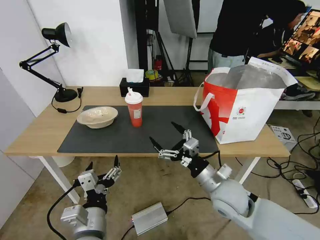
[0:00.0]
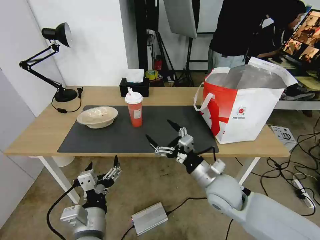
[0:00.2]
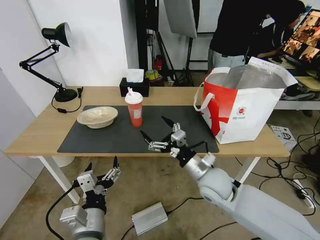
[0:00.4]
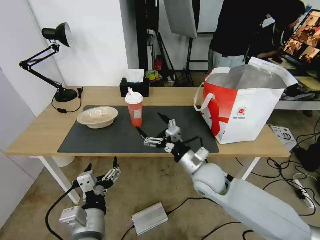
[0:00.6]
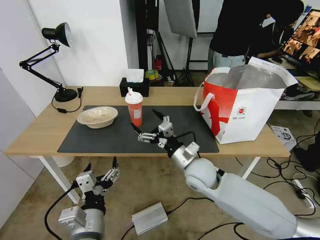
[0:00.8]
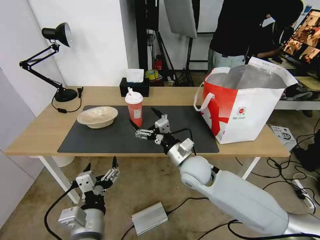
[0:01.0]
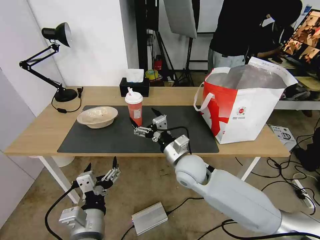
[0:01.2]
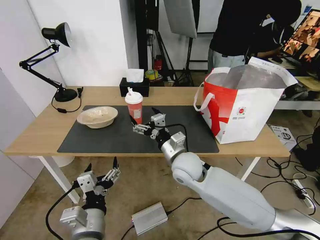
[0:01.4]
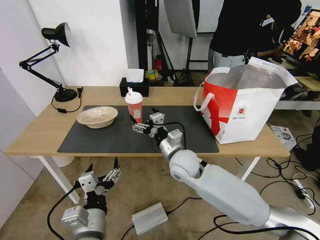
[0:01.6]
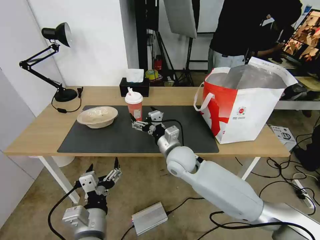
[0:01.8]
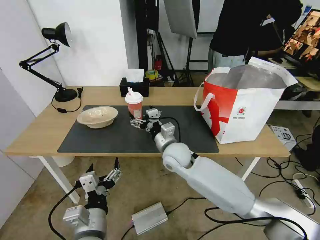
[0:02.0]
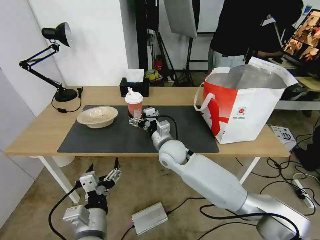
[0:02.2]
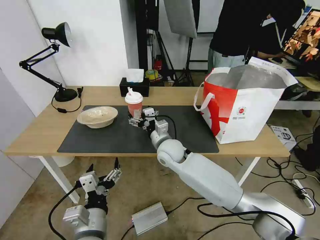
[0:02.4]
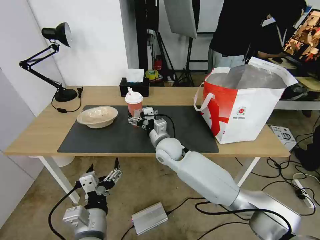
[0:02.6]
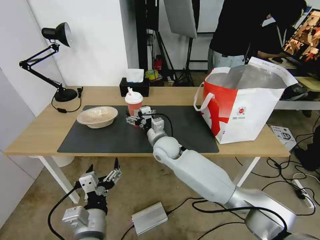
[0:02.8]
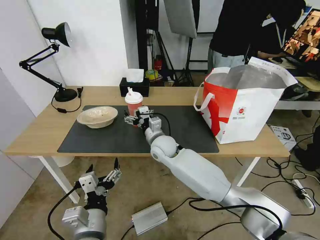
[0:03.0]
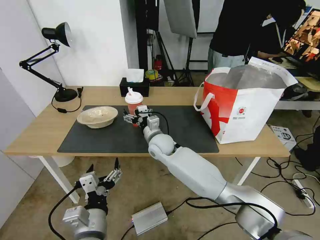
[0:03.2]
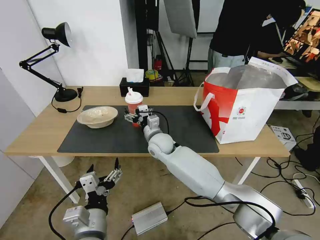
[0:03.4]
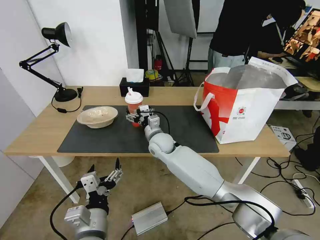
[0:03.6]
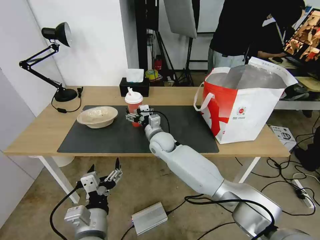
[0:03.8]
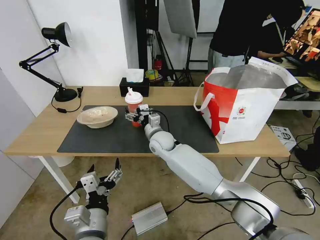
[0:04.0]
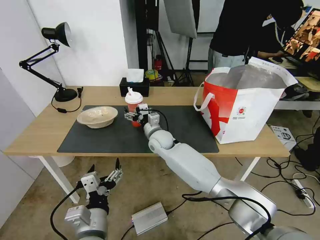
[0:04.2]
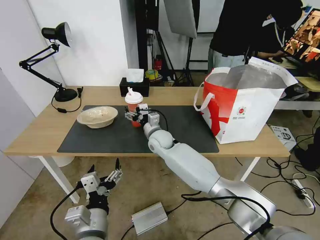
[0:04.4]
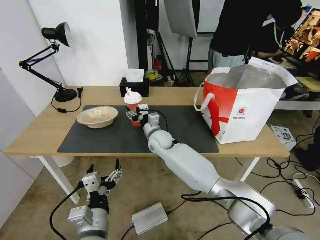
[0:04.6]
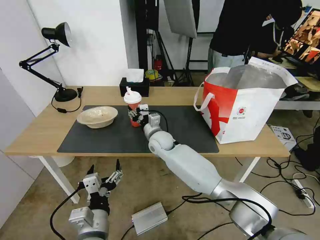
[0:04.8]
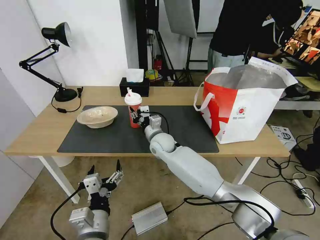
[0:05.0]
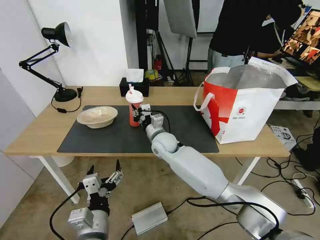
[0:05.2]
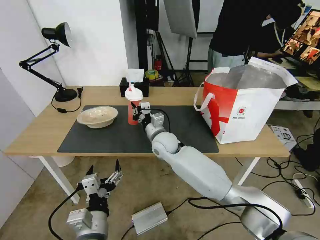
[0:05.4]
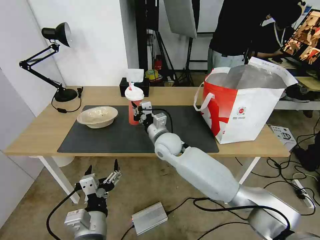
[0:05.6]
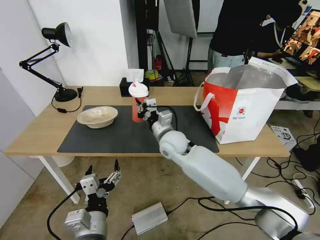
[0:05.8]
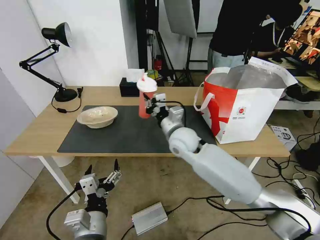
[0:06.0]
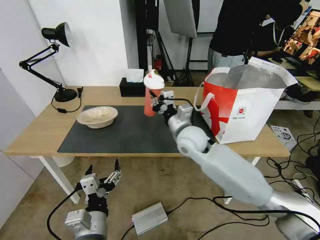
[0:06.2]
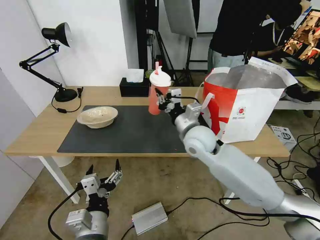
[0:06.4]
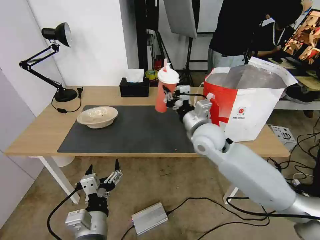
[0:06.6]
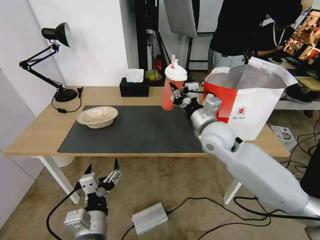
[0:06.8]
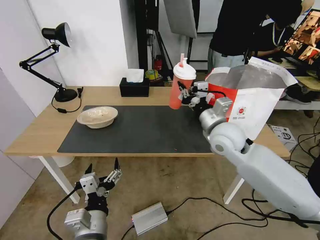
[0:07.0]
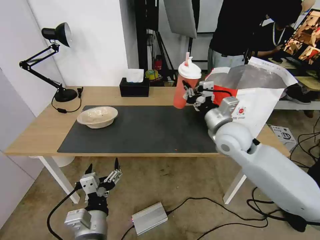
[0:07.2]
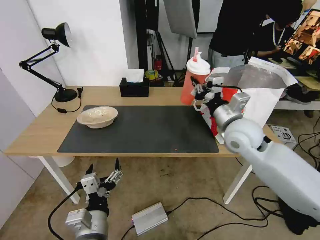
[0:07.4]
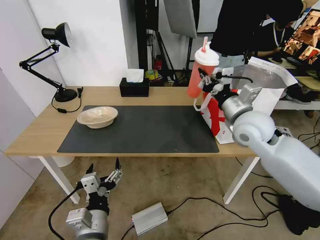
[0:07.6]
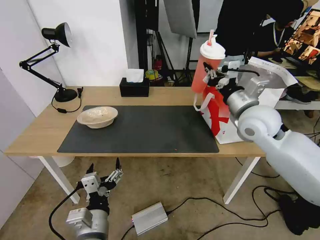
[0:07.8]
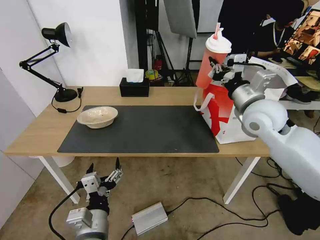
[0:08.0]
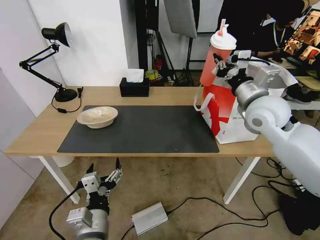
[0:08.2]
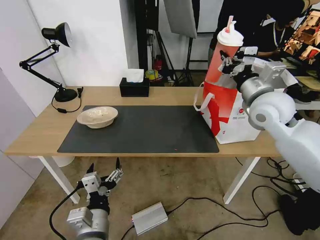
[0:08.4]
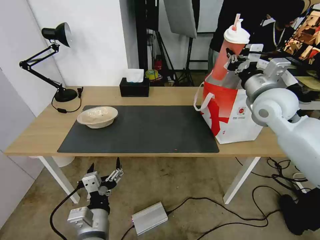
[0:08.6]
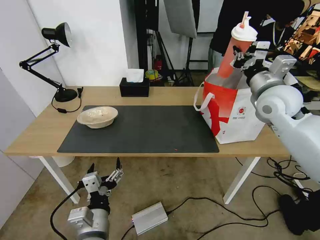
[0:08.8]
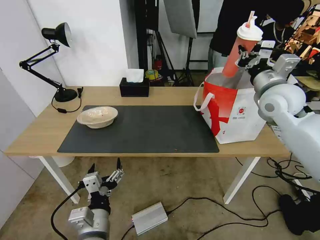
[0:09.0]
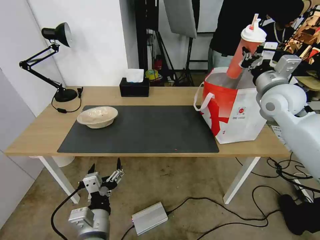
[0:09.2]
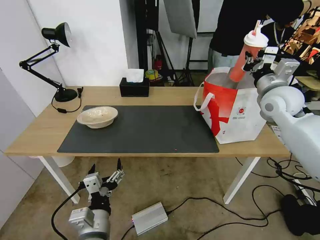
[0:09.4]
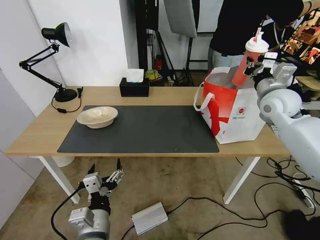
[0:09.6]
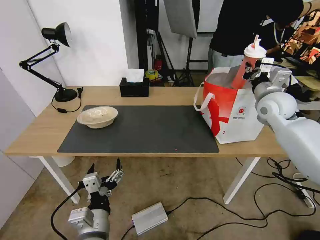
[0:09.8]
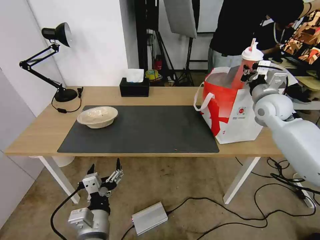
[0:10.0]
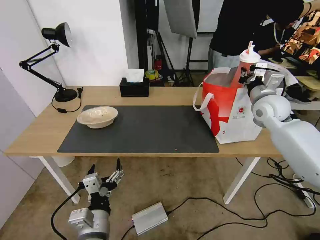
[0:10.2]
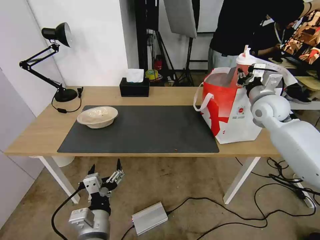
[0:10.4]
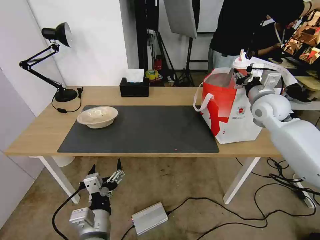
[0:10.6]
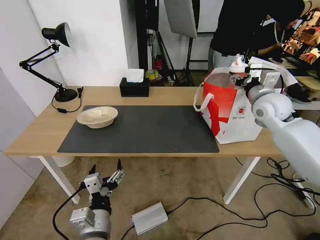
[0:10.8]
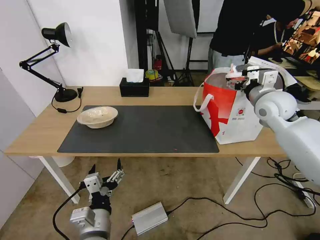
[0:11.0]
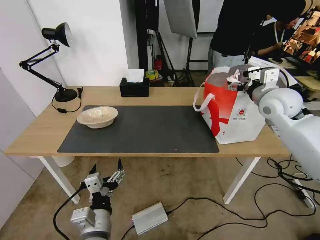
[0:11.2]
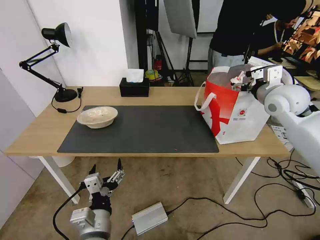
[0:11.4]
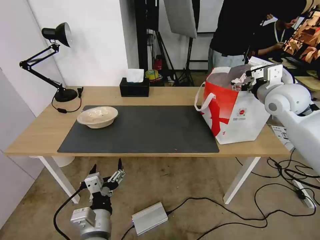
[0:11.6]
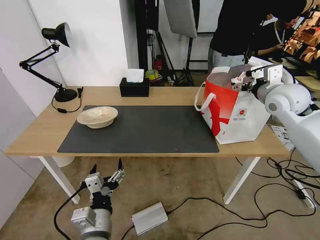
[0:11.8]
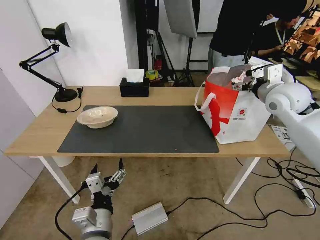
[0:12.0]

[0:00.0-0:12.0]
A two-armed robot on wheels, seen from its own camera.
Task of the whole recording: Pick up the trash from the table and place it into the takeout bag.
0:00.0 to 0:01.6: The right gripper shifts about 15 cm to the left and forward.
0:01.6 to 0:03.0: The right gripper shifts about 10 cm forward and to the left.
0:03.0 to 0:04.4: The grippers stay close to where they were, moving slightly.
0:04.4 to 0:06.0: The right gripper is displaced upward, to the right and backward by roughly 15 cm, and closes.
0:06.0 to 0:07.6: The right gripper travels to the right and upward by roughly 20 cm.
0:07.6 to 0:09.0: The right gripper travels to the right, forward and upward by roughly 10 cm.
0:09.0 to 0:10.4: The right gripper travels downward by approximately 5 cm.
0:10.4 to 0:12.0: The right gripper goes some 5 cm upward, and opens its fingers.

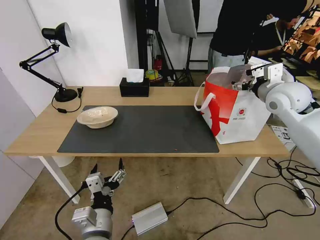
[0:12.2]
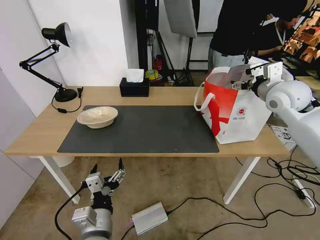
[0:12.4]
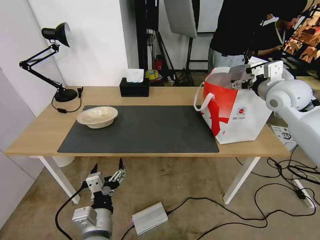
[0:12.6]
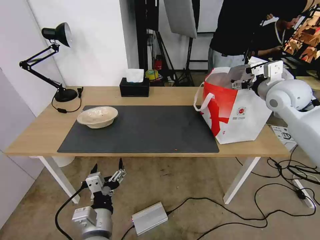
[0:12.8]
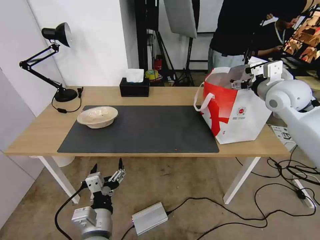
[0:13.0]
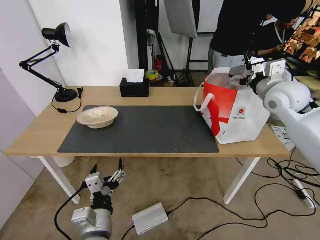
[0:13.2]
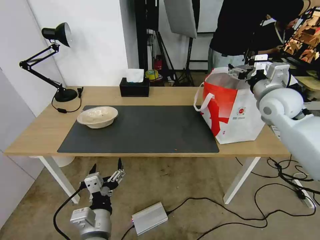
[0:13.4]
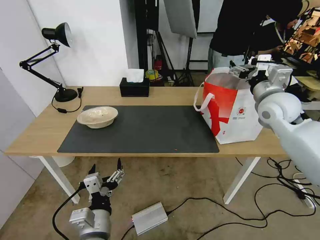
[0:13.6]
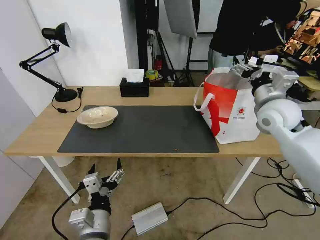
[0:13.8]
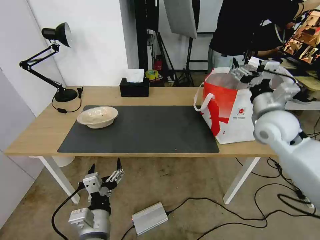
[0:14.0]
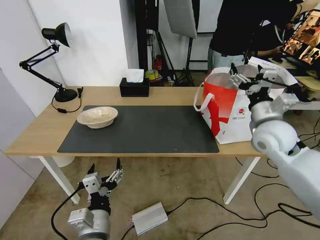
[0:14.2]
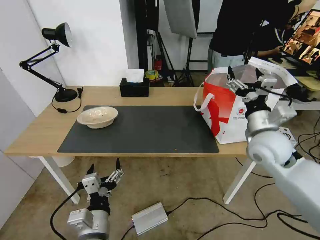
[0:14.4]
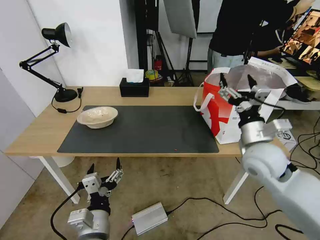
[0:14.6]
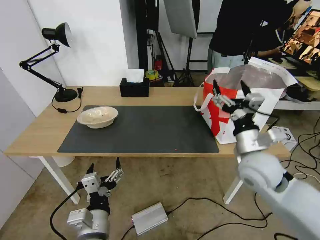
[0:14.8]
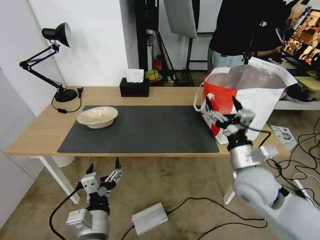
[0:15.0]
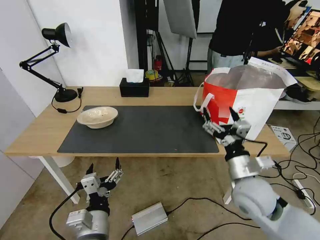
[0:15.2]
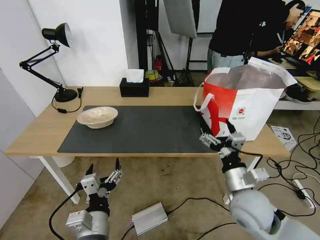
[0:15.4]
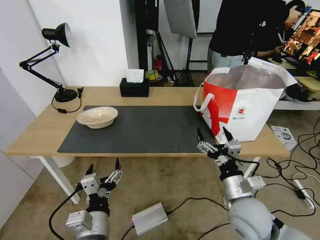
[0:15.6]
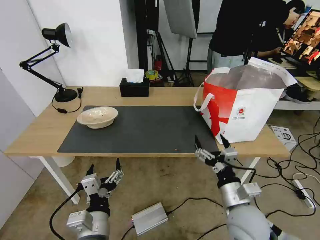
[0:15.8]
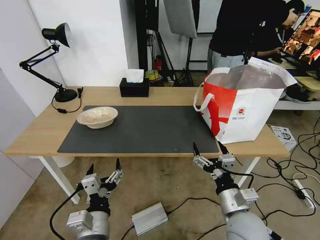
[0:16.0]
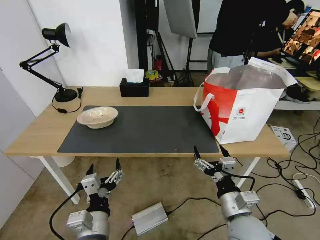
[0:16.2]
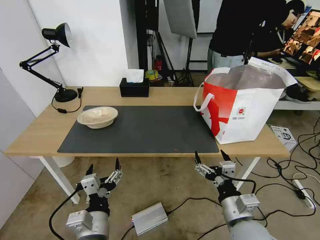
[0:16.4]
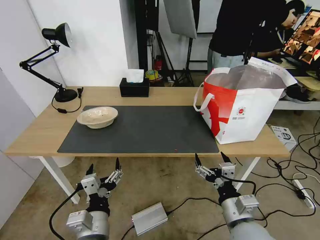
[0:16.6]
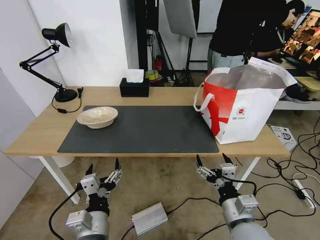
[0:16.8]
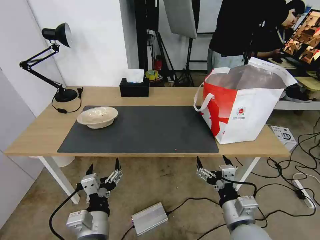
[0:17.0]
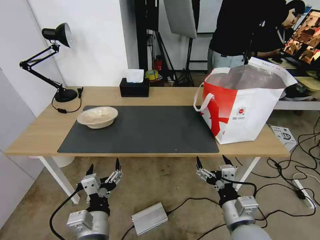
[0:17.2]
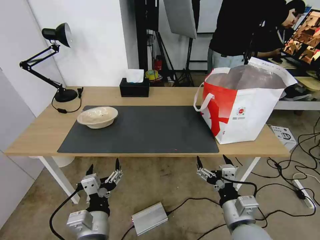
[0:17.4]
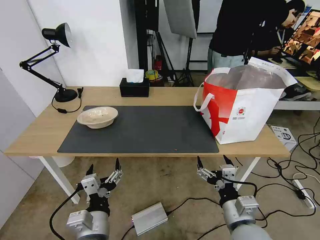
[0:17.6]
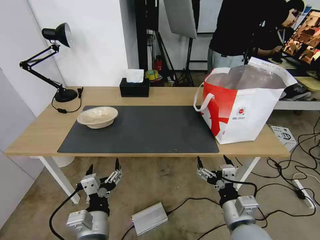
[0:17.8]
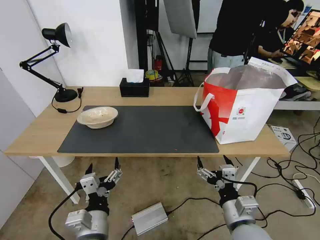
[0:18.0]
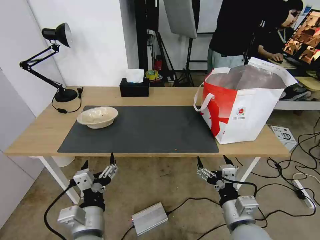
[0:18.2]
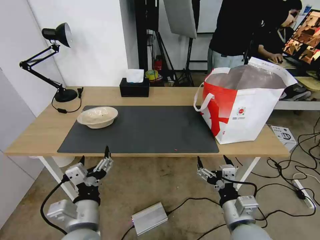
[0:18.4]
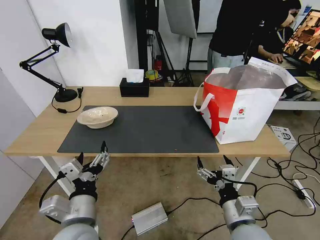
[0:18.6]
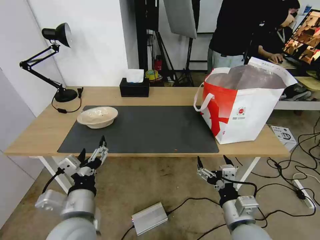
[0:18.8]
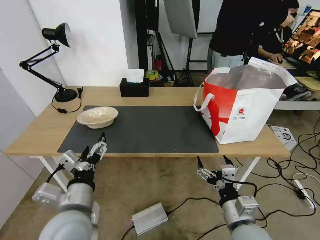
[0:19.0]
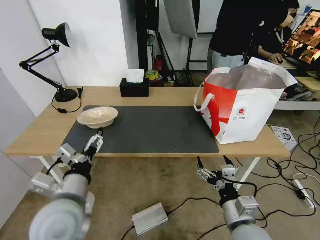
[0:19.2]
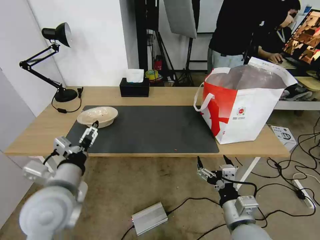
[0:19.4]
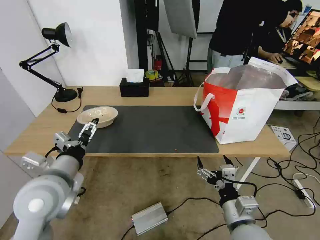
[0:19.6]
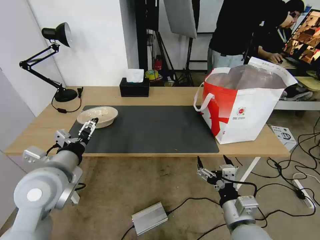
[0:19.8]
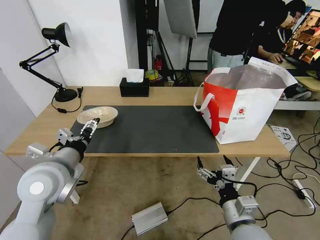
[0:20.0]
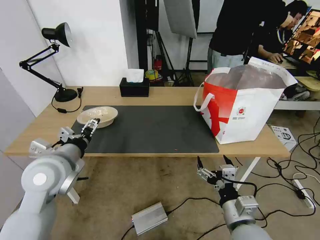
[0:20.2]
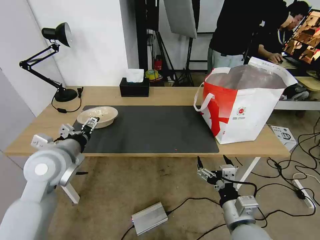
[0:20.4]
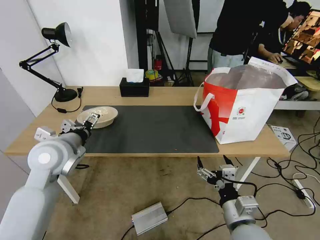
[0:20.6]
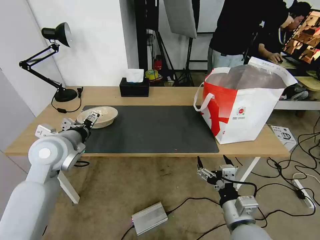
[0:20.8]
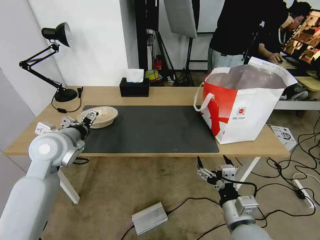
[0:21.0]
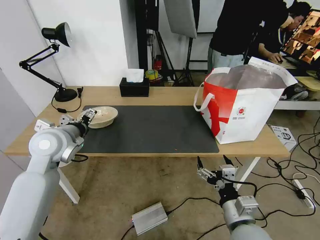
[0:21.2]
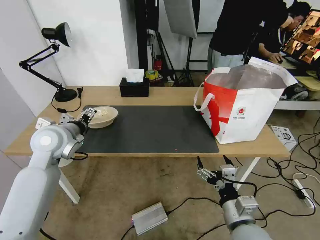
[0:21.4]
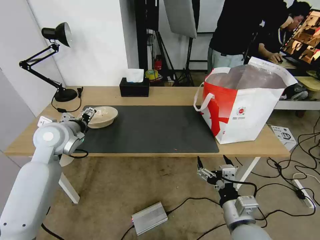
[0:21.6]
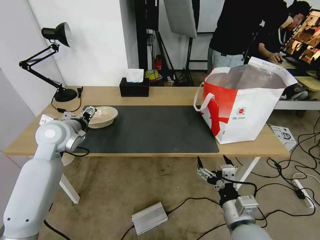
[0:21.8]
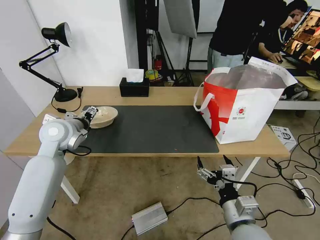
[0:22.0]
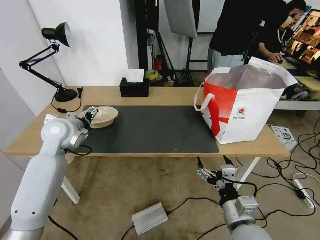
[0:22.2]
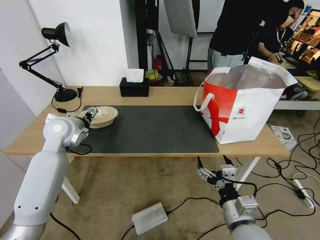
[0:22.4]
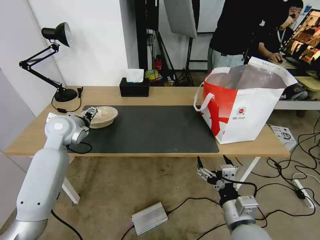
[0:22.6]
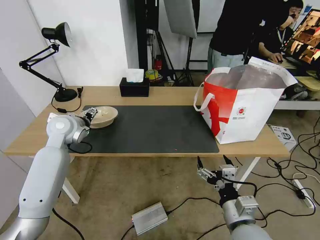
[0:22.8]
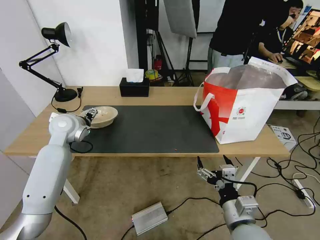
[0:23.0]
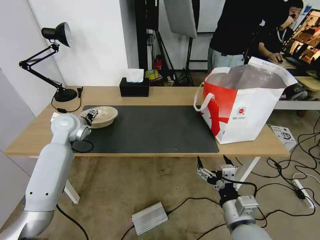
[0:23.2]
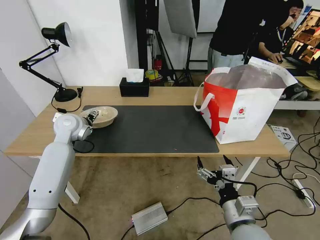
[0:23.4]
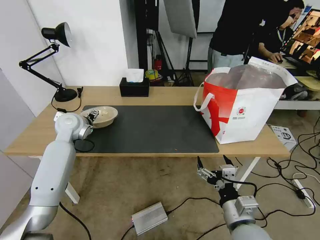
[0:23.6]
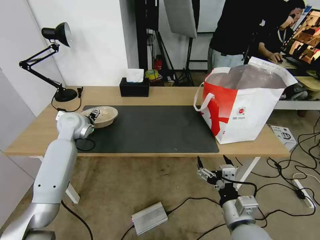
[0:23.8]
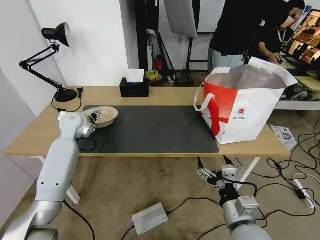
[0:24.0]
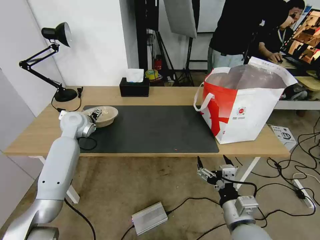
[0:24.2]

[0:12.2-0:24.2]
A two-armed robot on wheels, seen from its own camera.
Task of the whole recording: Pick up the trash from the table and place it into the takeout bag.
0:12.2 to 0:13.8: The right gripper moves about 5 cm.
0:13.8 to 0:15.2: The right gripper goes some 25 cm backward, downward and to the left.
0:15.2 to 0:16.6: The right gripper is displaced backward by some 10 cm.
0:16.6 to 0:18.2: There are only small adjustments of the grippers.
0:18.2 to 0:19.8: The left gripper moves forward, upward and to the left, about 20 cm.
0:19.8 to 0:21.2: The left gripper goes some 10 cm forward.
0:21.2 to 0:22.6: The left gripper shifts approximately 10 cm forward.
0:22.6 to 0:24.2: The left gripper goes approximately 5 cm forward.
